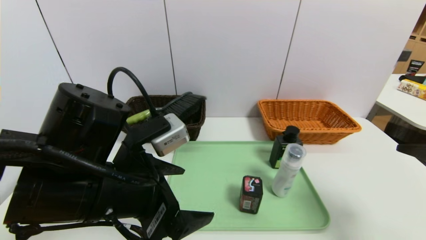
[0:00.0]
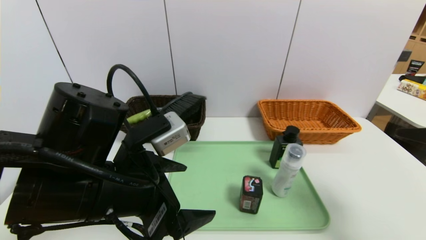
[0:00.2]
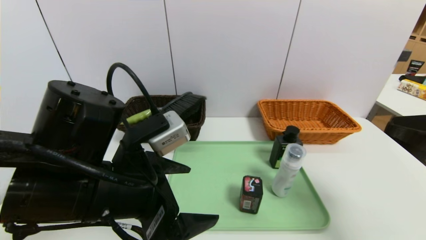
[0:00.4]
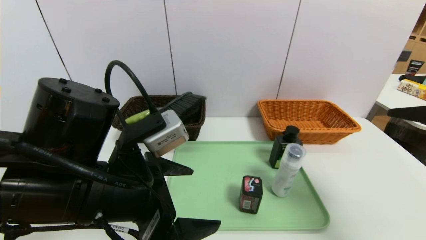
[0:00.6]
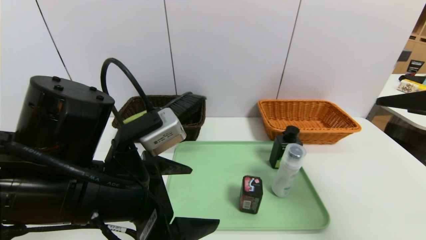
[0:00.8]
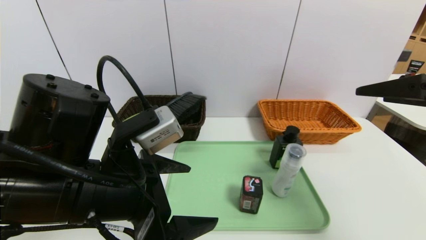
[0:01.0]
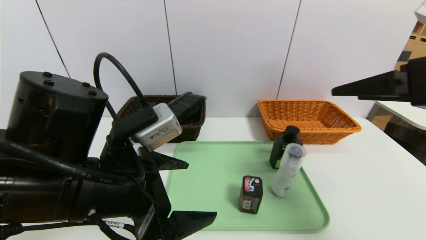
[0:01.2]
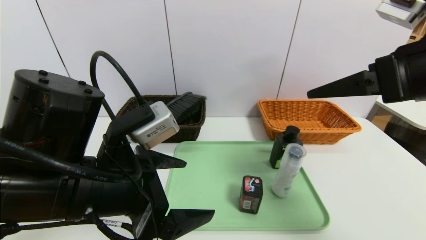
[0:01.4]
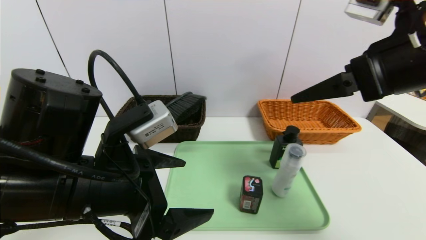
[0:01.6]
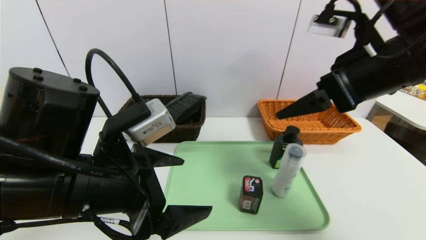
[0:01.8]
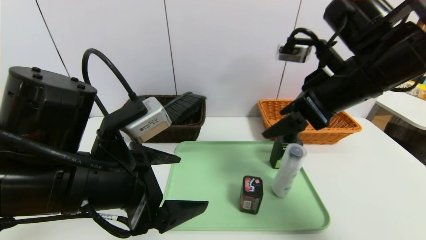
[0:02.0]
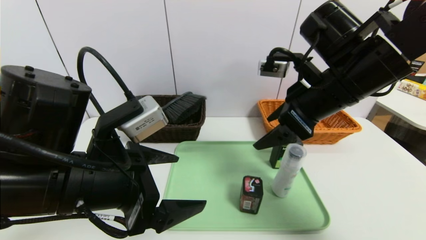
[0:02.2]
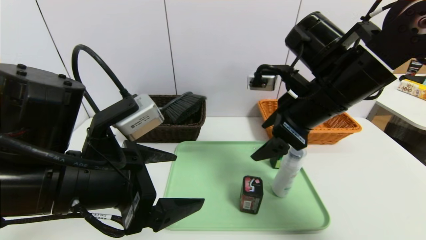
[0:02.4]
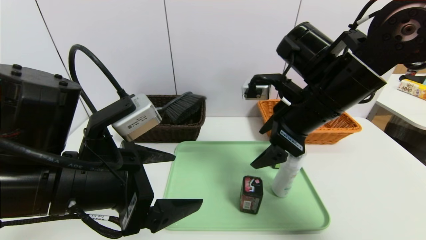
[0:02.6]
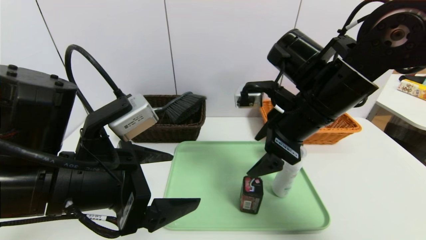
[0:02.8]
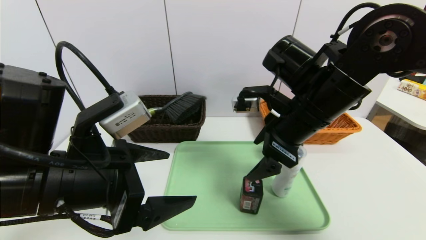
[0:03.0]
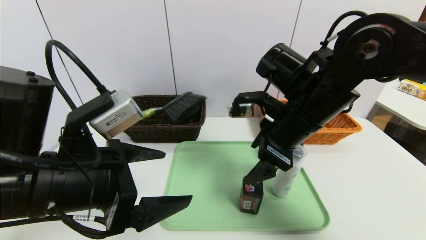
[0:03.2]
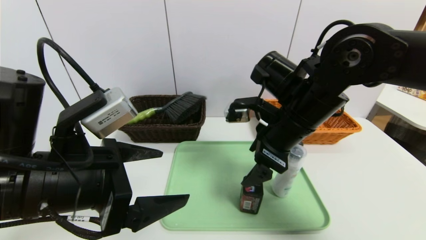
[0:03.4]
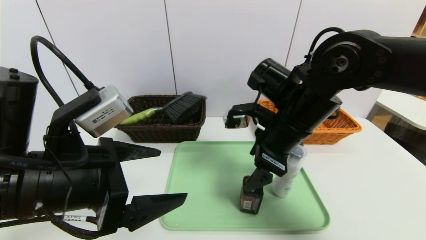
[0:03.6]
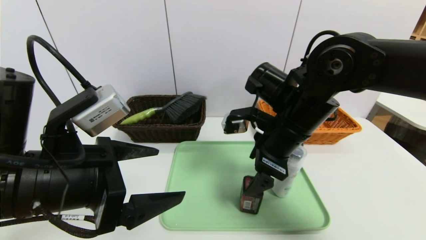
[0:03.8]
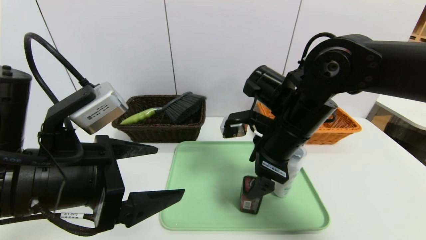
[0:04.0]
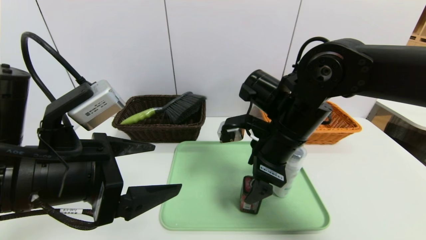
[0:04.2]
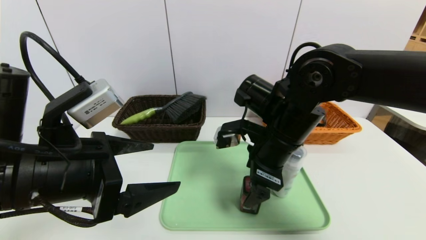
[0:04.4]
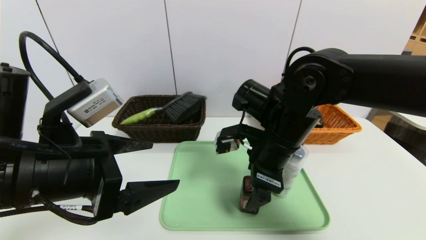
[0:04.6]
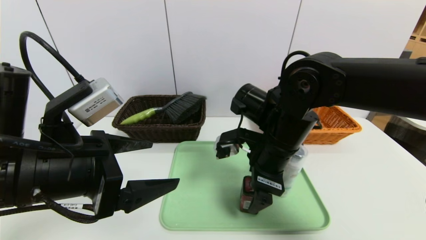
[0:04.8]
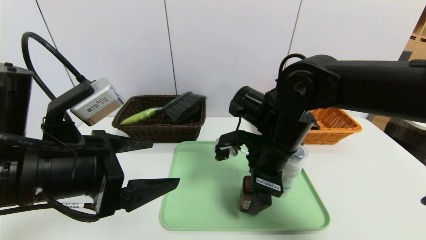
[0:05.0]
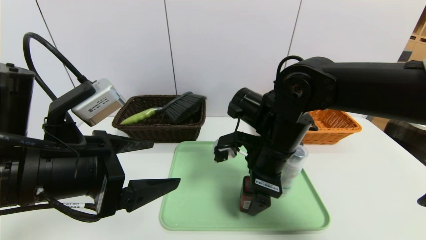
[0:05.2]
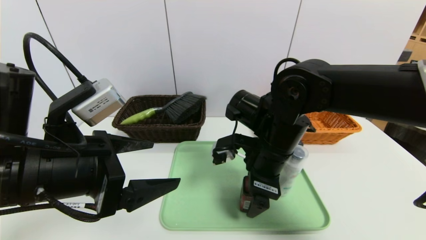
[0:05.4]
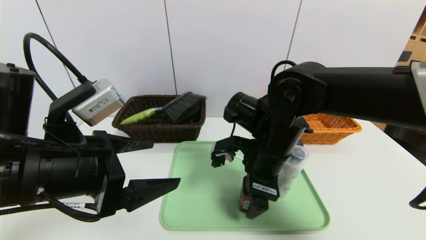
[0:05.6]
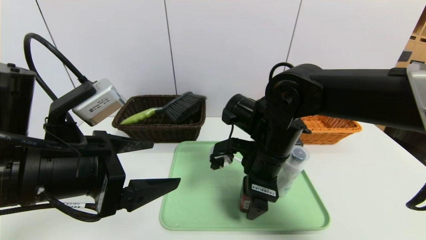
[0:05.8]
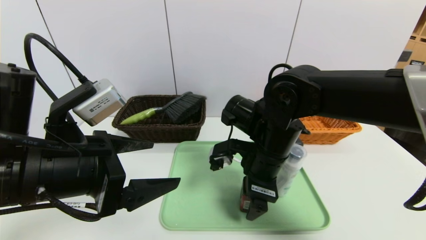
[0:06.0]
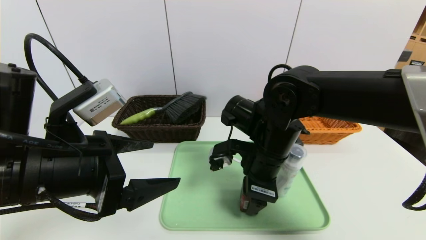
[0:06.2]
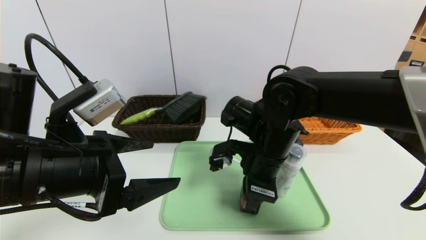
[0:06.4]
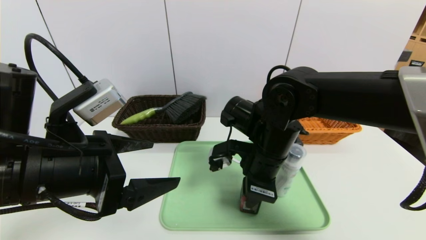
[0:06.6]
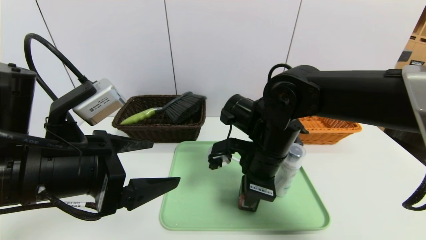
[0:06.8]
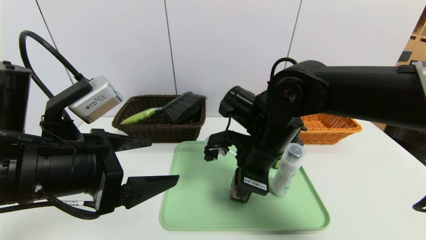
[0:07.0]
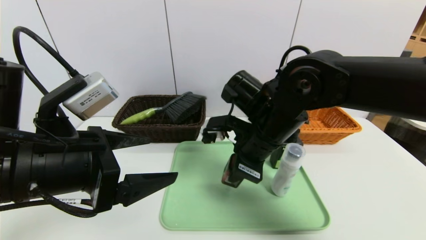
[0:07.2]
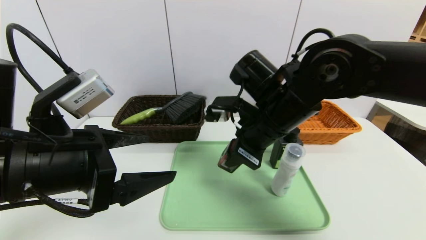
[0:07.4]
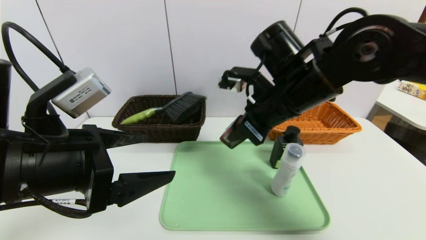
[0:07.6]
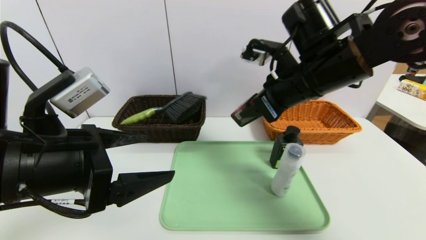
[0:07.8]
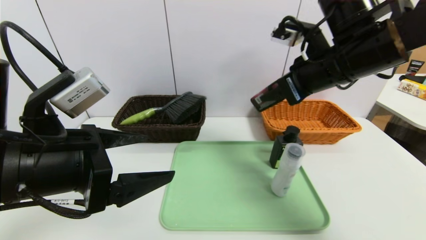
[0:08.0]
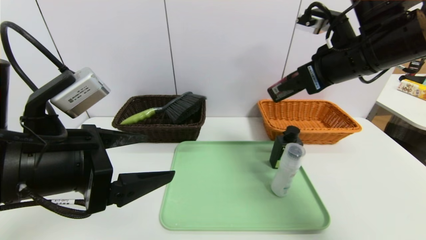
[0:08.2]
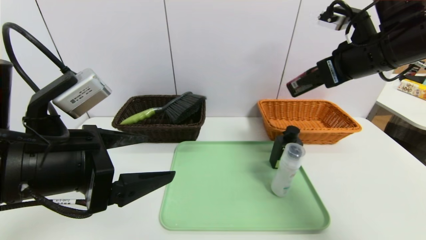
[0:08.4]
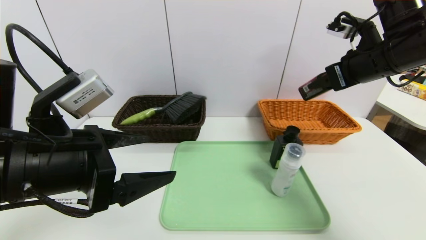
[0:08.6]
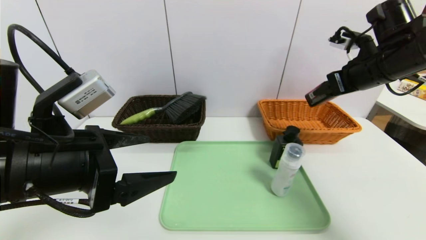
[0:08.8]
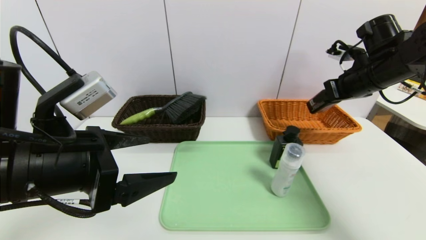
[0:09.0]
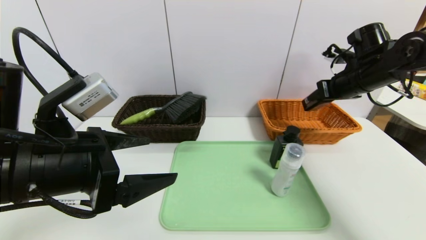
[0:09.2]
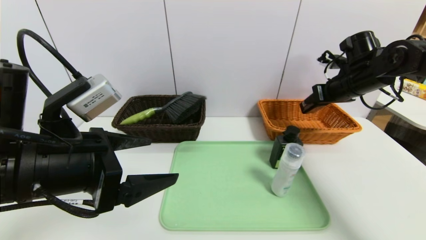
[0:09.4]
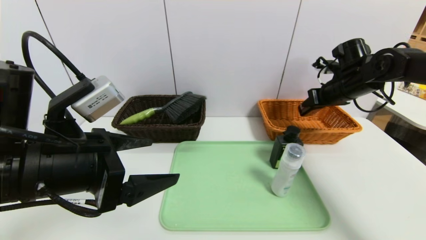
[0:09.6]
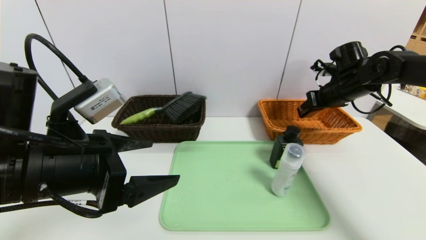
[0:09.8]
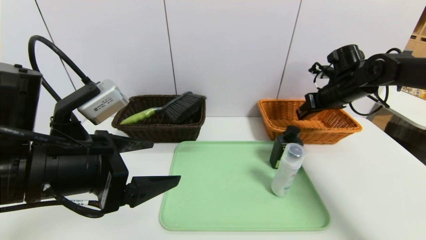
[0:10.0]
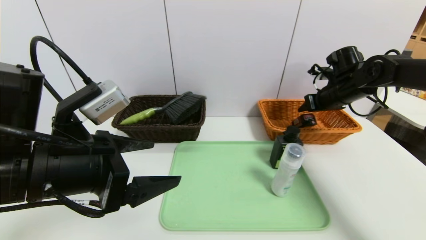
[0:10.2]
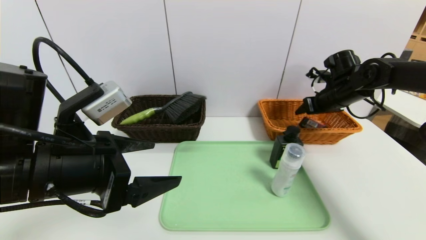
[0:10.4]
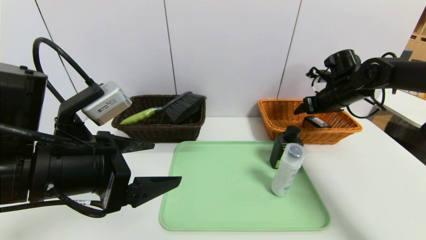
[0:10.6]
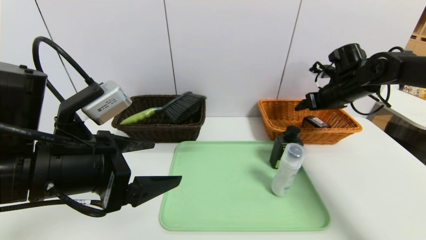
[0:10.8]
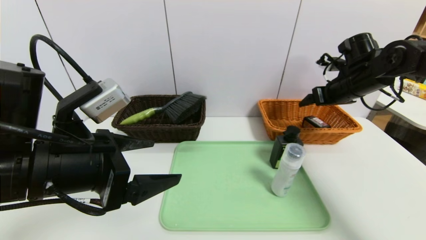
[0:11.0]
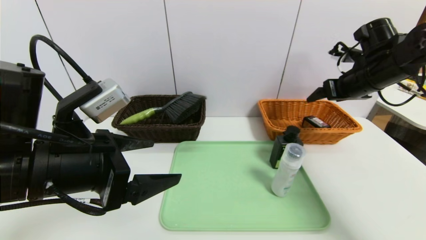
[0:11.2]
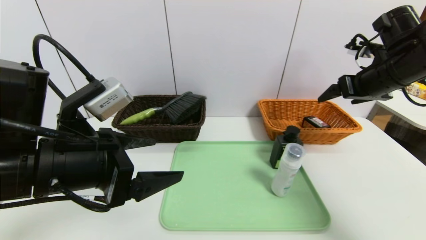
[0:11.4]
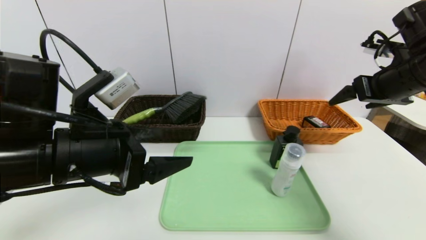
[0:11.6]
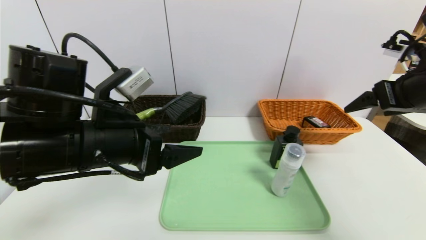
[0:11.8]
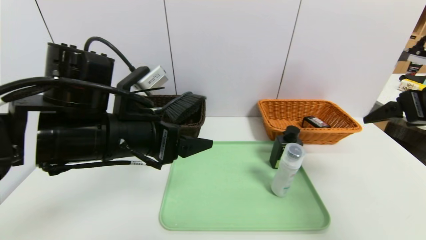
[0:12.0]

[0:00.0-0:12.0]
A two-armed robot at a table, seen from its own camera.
Task of the whole recording: place the food in the right basket with the right gripper, and place the non food items in the left basket with the left gripper.
Step, 0:00.0 to 0:10.6: Grasp the square chewing gum and put it in the right basket.
0:00.0 to 0:01.6: The right gripper shifts about 15 cm to the left, forward and upward.
0:01.6 to 0:03.0: The right gripper moves to the left and downward, approximately 15 cm.
0:03.0 to 0:04.4: The right gripper ends up approximately 5 cm from where it was.
0:06.0 to 0:07.6: The right gripper shifts roughly 10 cm upward, and closes.
0:07.6 to 0:09.0: The right gripper heads to the right and forward, covering roughly 20 cm.
0:09.0 to 0:10.4: The right gripper shifts about 10 cm downward and forward, and opens up.
0:10.4 to 0:12.0: The left gripper is displaced forward by some 5 cm; the right gripper travels backward and upward by some 25 cm, and opens its fingers.

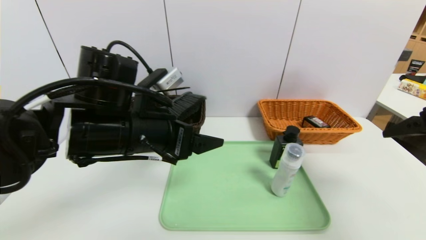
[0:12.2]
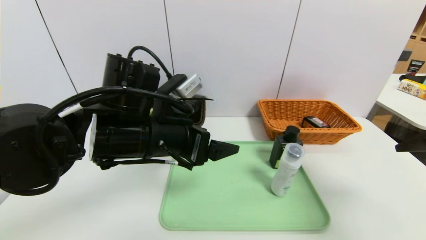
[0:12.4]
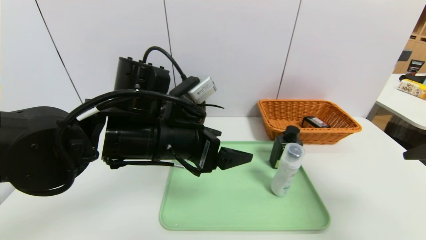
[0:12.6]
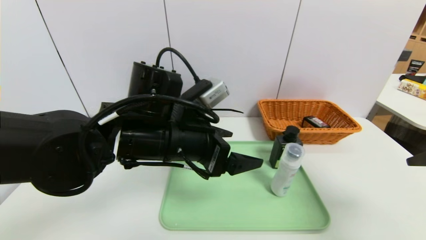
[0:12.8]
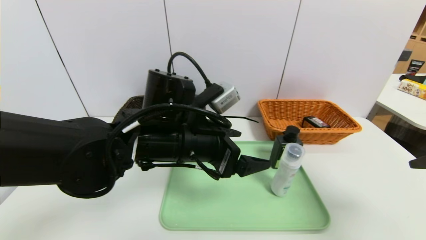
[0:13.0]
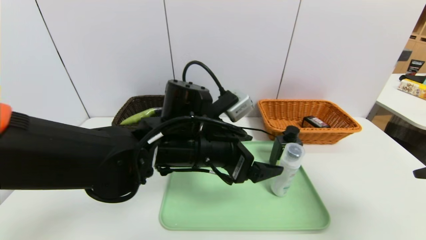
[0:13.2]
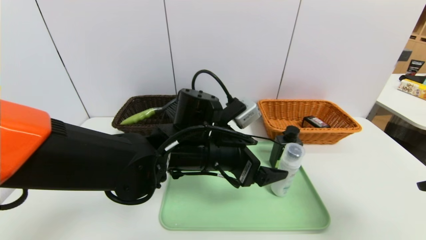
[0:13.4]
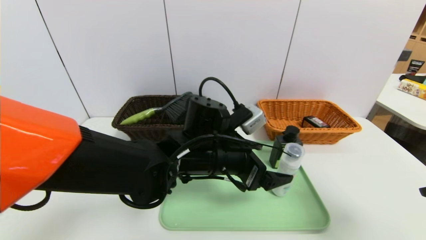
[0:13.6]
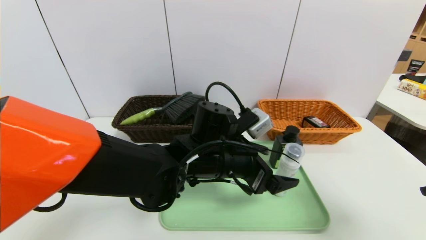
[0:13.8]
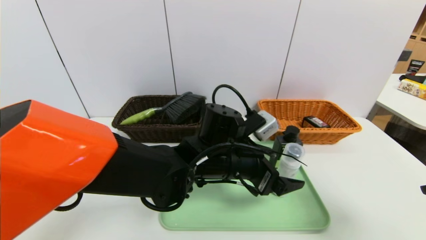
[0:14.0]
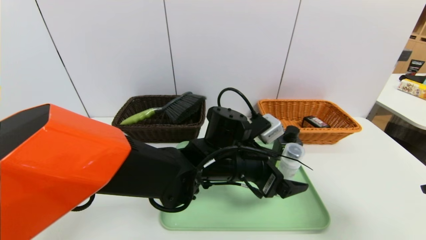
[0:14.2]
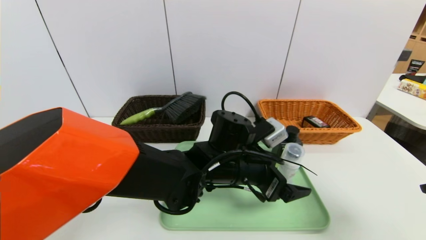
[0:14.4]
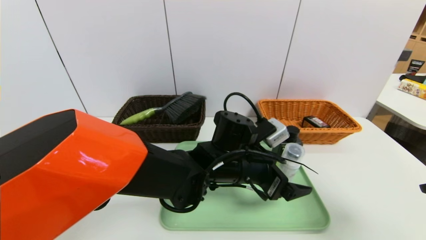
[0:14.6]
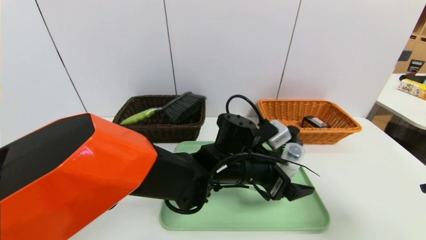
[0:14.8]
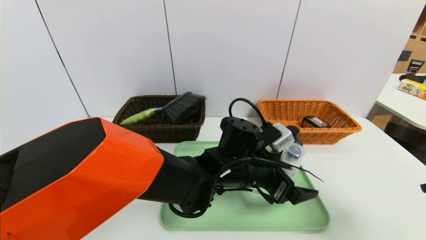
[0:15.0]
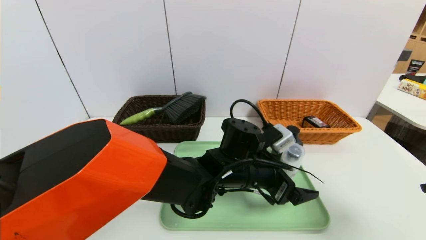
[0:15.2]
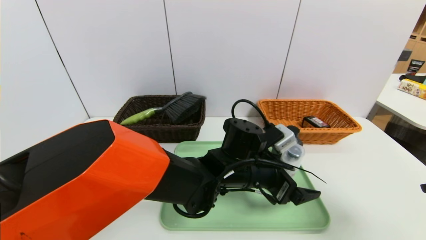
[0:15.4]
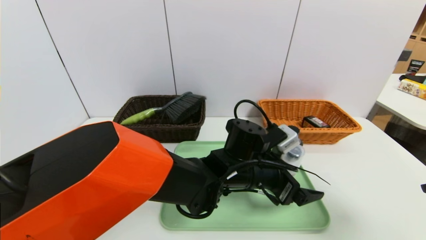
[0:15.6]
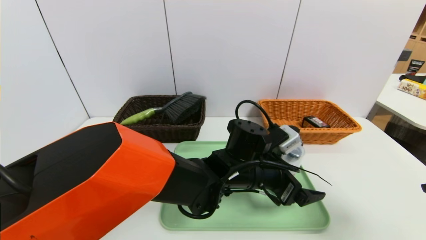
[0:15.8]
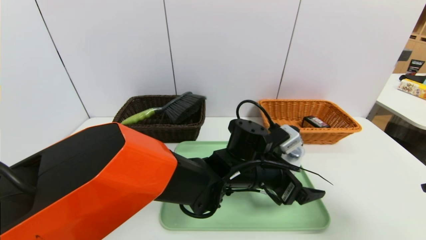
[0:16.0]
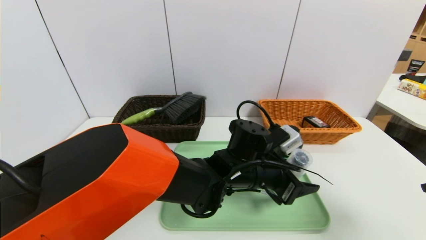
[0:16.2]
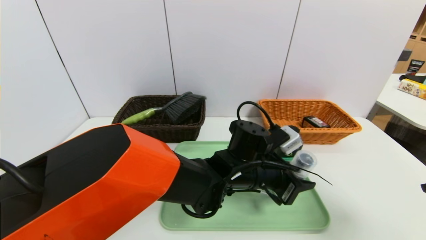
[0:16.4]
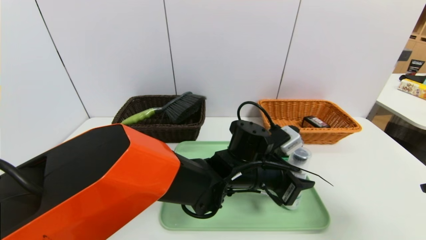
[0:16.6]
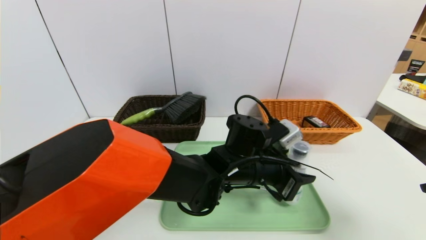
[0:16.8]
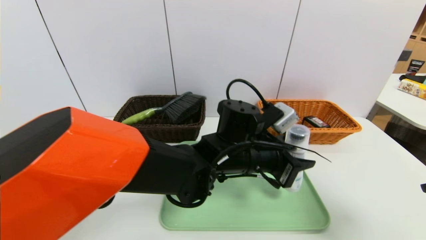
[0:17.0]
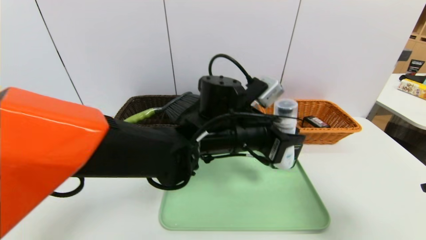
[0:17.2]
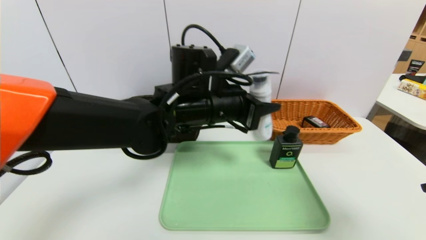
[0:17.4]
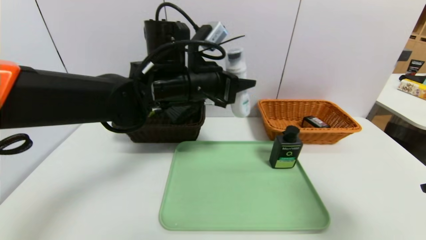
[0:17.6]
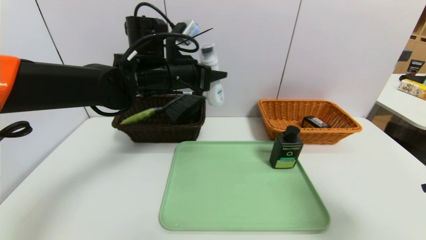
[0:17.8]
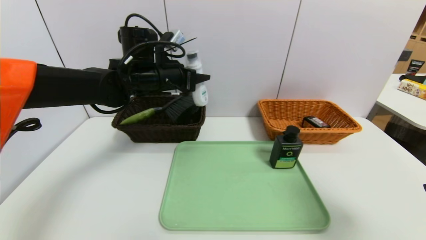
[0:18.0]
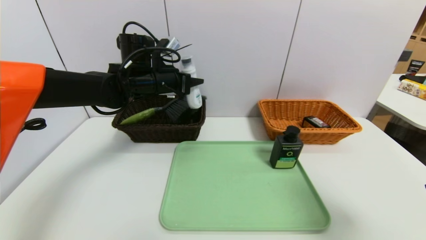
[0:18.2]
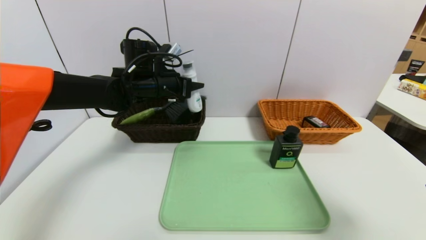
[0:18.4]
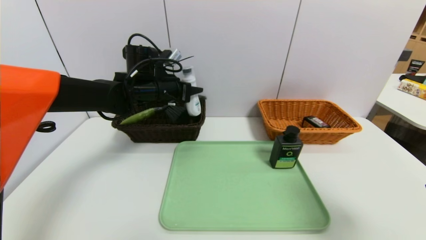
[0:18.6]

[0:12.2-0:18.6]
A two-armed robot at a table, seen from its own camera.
Task of the whole recording: place the food in the right basket with the right gripper, and place the non food items in the left basket with the left gripper.
0:12.2 to 0:13.8: The left gripper moves to the right and downward, approximately 15 cm. The right gripper moves backward, about 10 cm.
0:13.8 to 0:15.4: The left gripper is displaced to the right by approximately 5 cm.
0:15.4 to 0:17.0: The left gripper closes its fingers.
0:17.0 to 0:18.6: The left gripper shifts about 25 cm to the left and forward.
